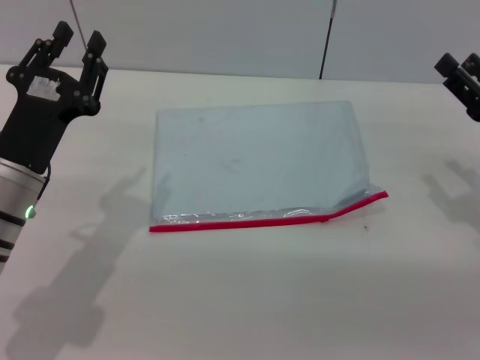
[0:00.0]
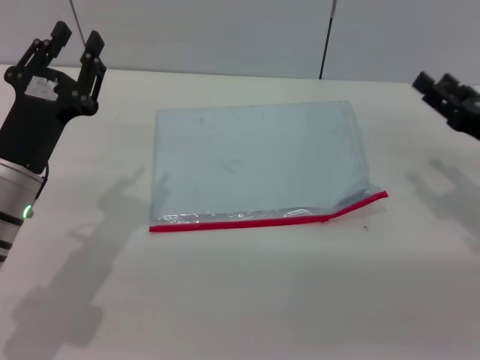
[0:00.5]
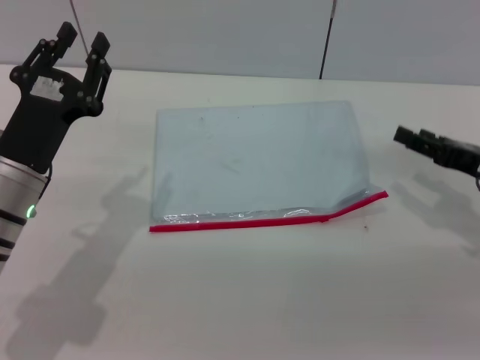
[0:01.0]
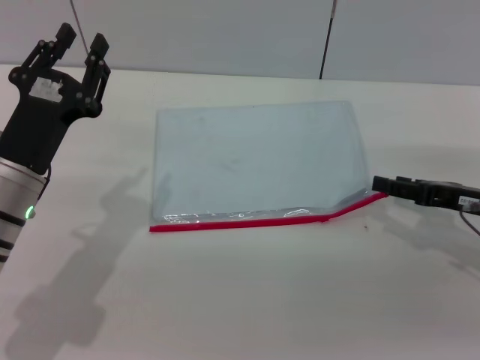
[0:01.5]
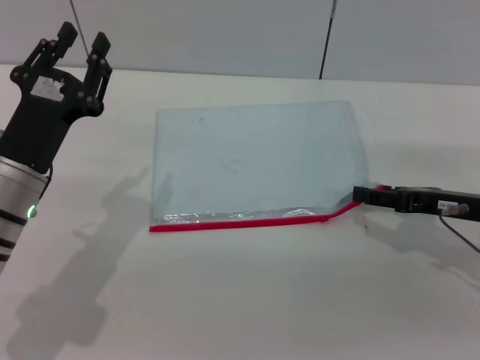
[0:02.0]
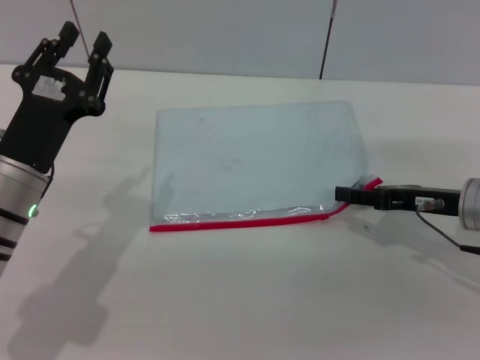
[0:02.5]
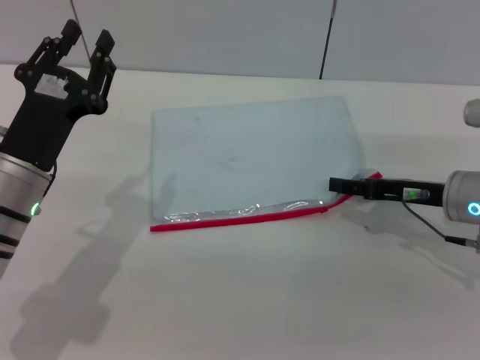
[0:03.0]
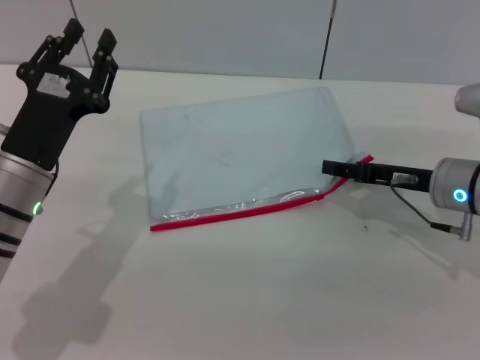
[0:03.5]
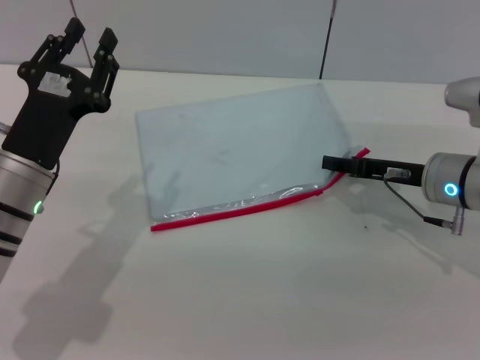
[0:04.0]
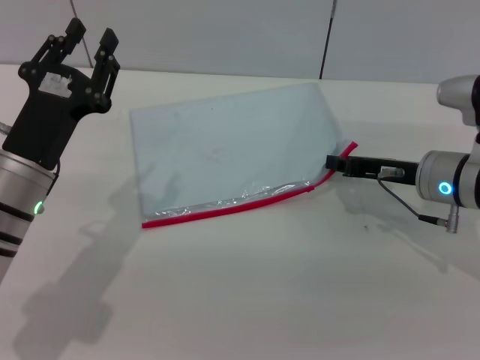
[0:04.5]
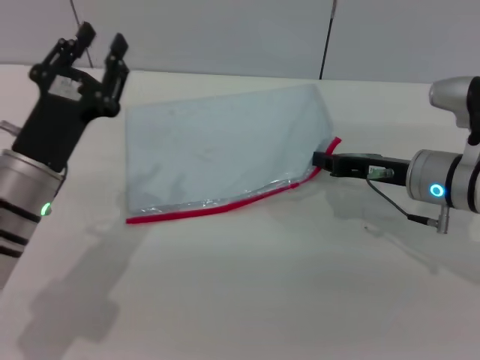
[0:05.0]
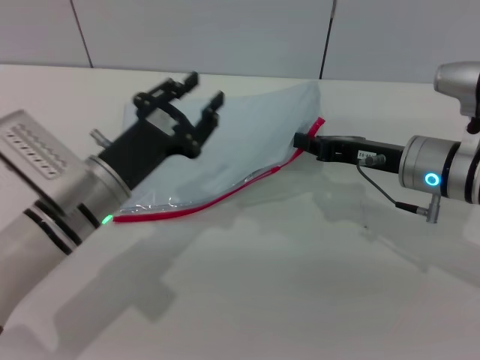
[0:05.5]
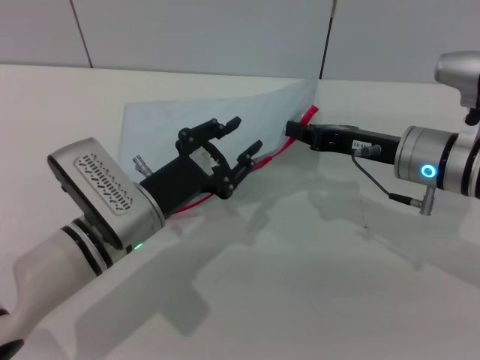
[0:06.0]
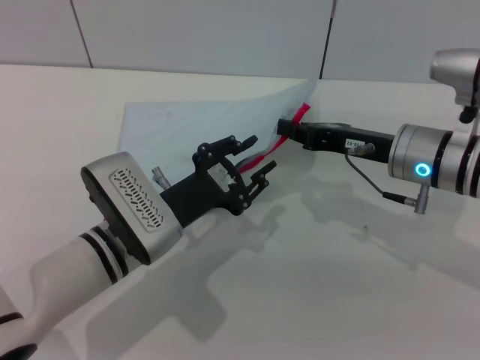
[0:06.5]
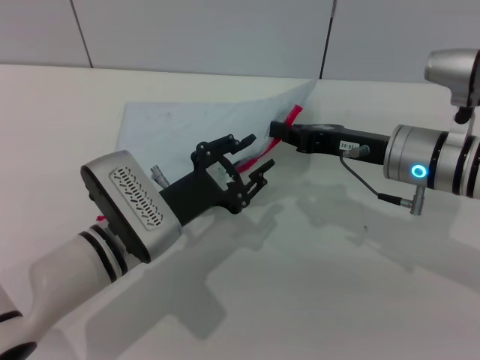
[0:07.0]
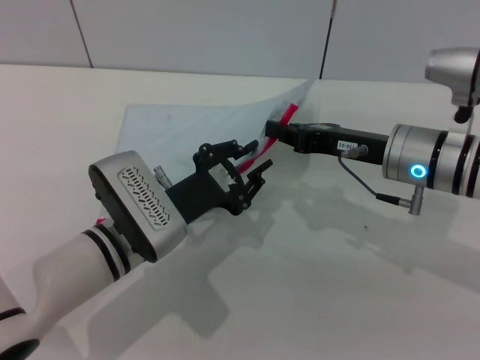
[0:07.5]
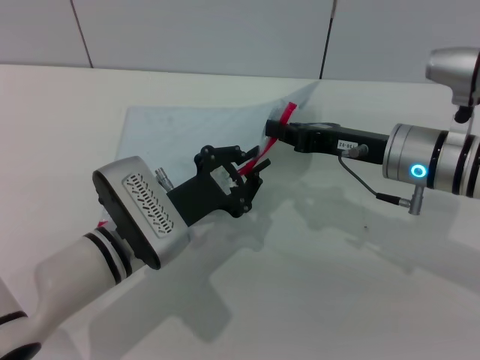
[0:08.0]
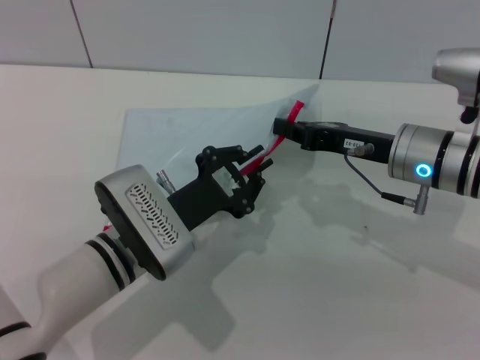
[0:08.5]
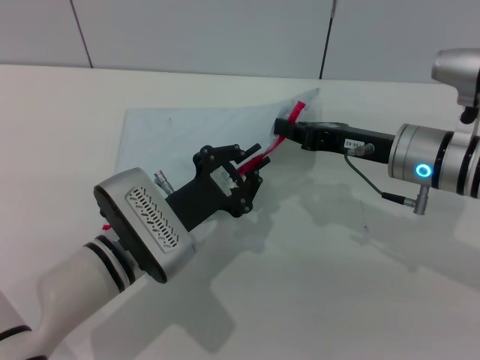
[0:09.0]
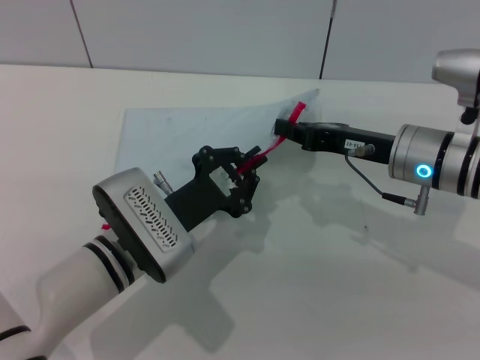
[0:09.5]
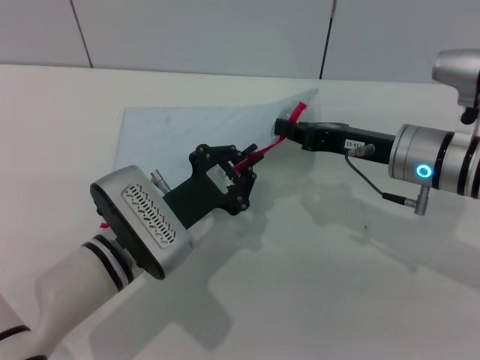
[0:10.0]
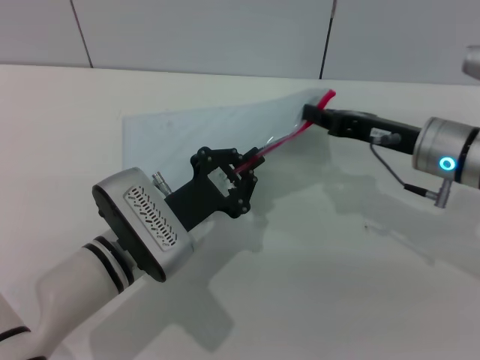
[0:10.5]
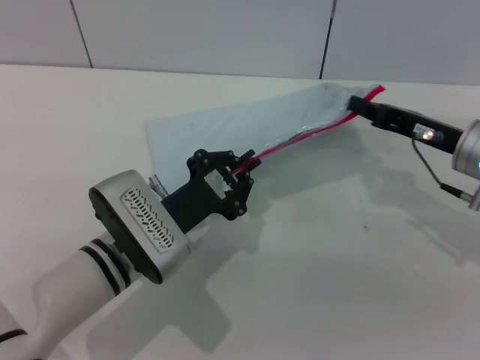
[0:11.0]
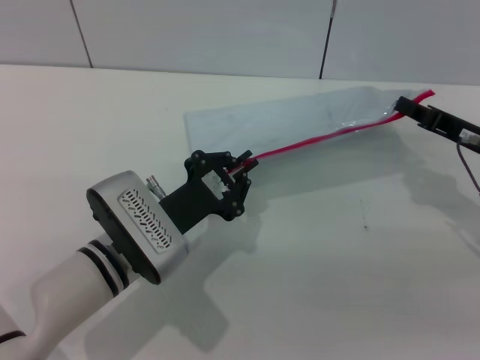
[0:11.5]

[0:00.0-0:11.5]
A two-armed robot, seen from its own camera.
Step, 0:00.0 to 0:05.5: Pick up the transparent plastic bag with the right gripper.
0:02.0 to 0:04.0: The right gripper shifts roughly 5 cm to the left.
0:04.0 to 0:06.0: The left gripper shifts about 10 cm to the right. The right gripper closes its fingers.
0:06.0 to 0:07.5: The grippers stay close to where they were, moving slightly.
0:07.5 to 0:09.5: The left gripper closes up.
0:09.5 to 0:11.5: The right gripper is displaced to the right by approximately 10 cm.

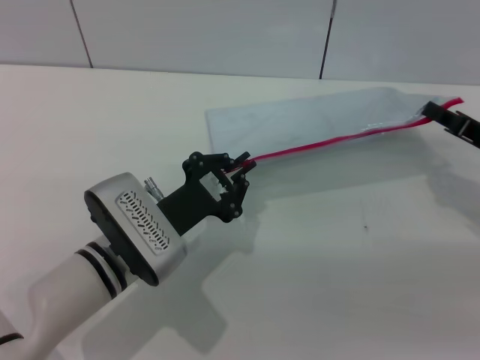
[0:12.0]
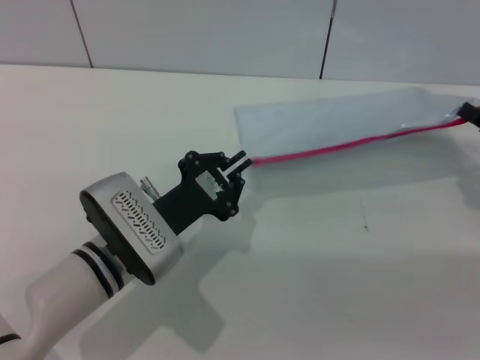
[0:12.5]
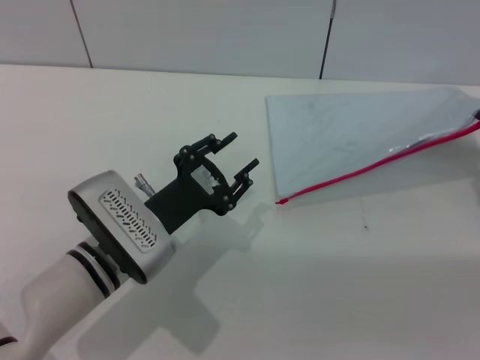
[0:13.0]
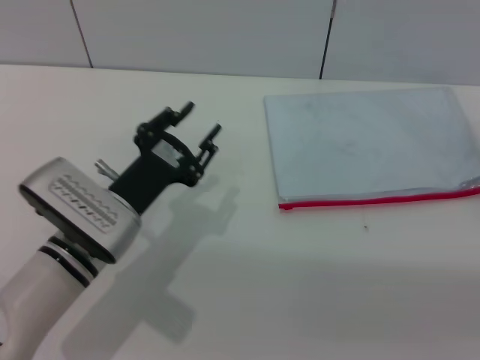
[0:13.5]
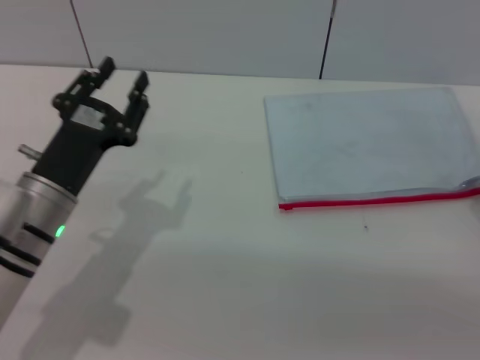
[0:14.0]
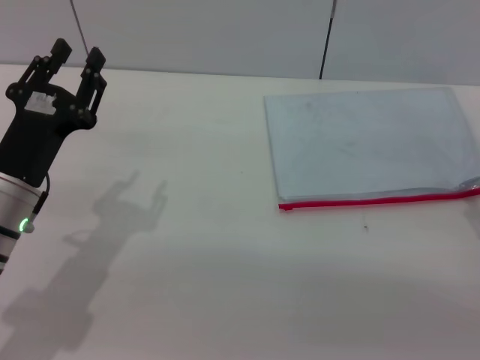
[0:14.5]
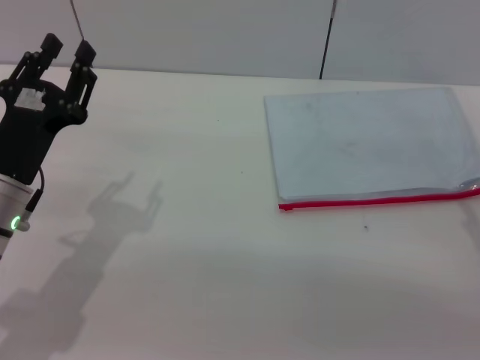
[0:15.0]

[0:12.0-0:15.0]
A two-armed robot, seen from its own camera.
0:12.0 to 0:13.5: The left gripper opens its fingers, while the right gripper shifts roughly 5 cm to the right, and opens its fingers.
0:13.5 to 0:15.0: Both grippers move to the left, roughly 5 cm. The right gripper opens up.
